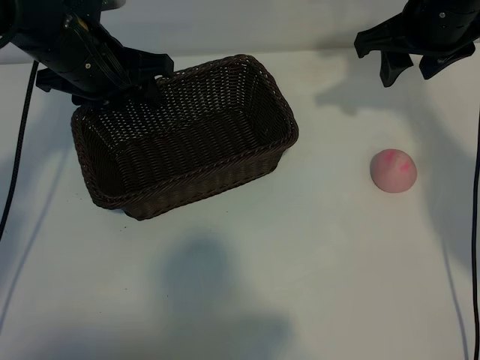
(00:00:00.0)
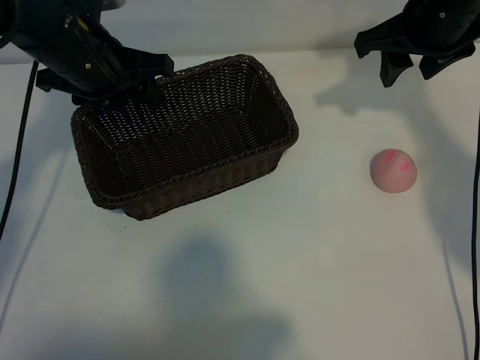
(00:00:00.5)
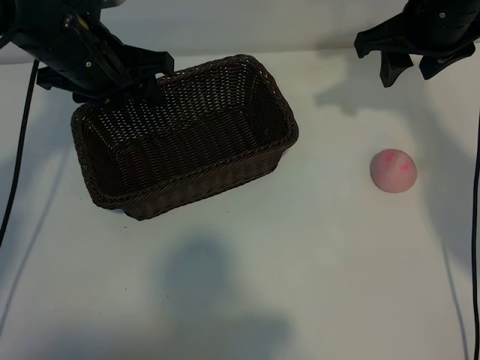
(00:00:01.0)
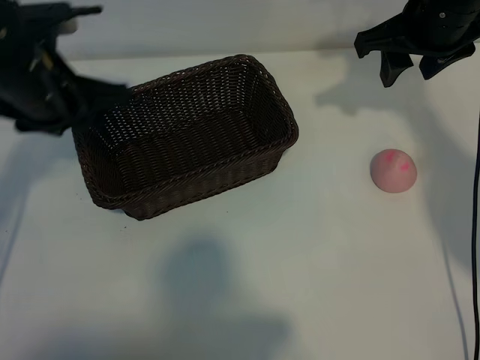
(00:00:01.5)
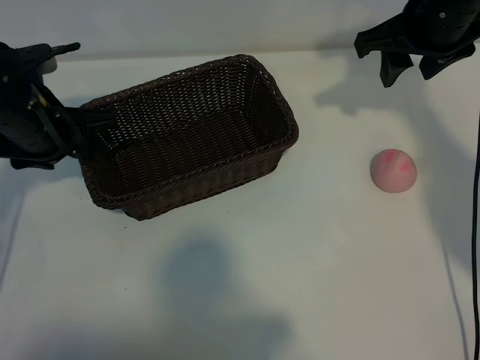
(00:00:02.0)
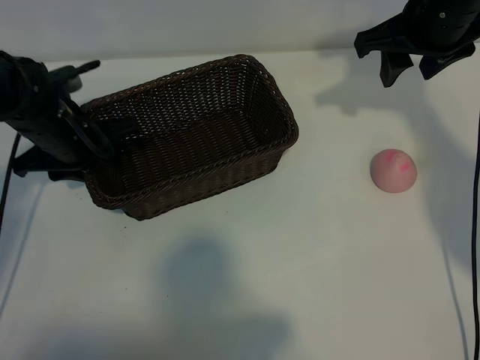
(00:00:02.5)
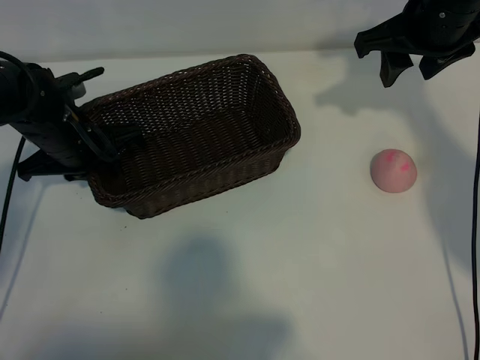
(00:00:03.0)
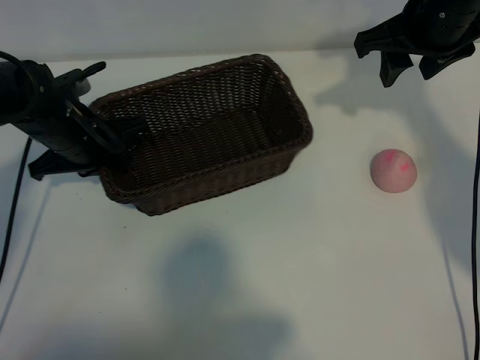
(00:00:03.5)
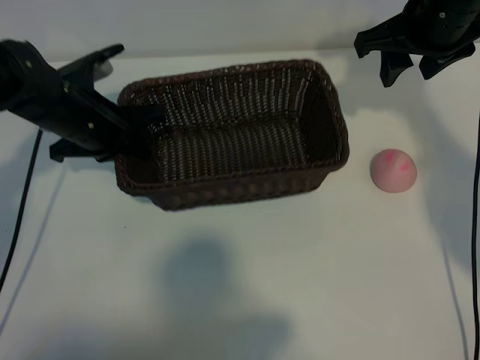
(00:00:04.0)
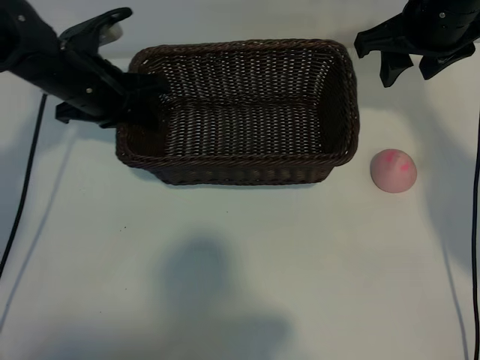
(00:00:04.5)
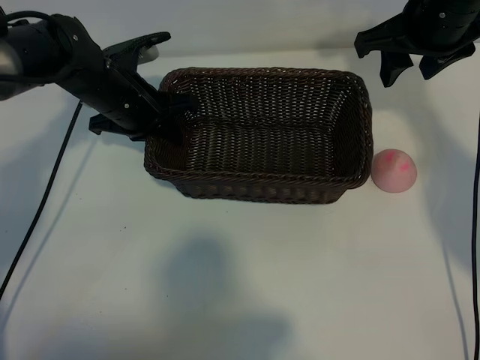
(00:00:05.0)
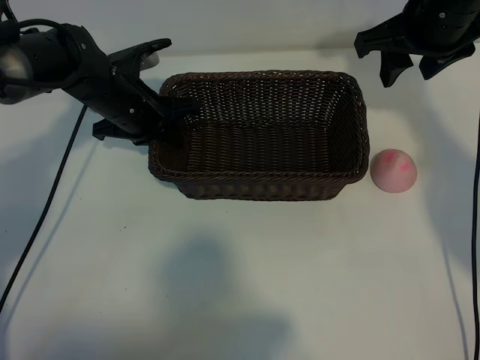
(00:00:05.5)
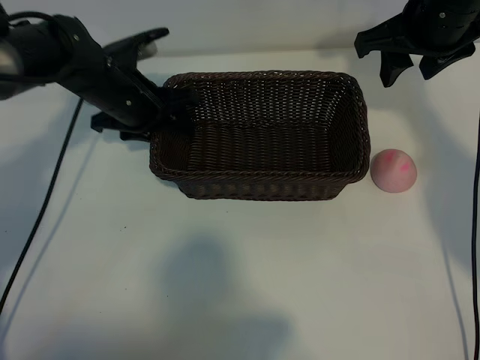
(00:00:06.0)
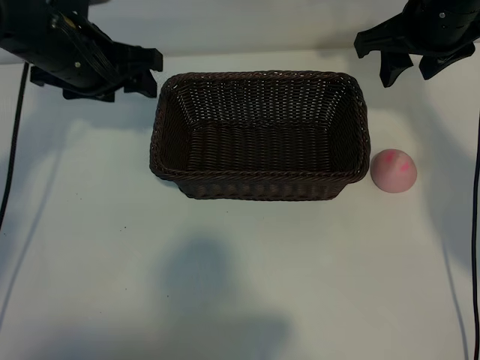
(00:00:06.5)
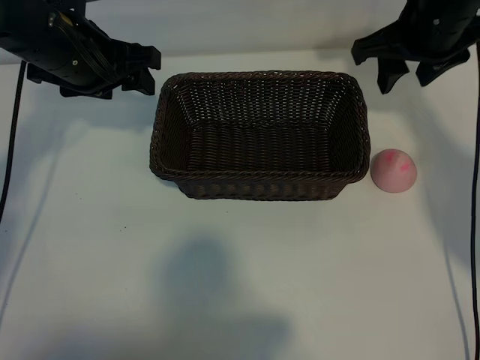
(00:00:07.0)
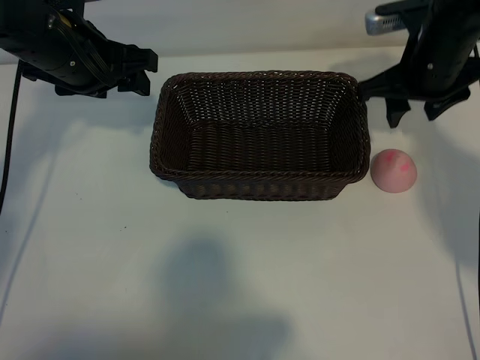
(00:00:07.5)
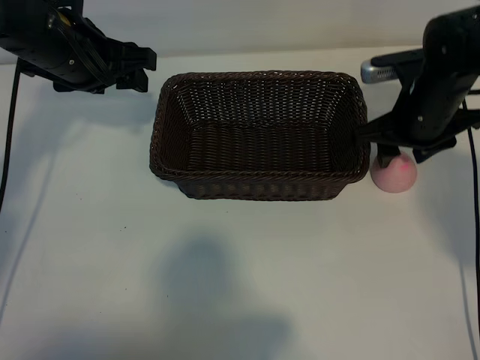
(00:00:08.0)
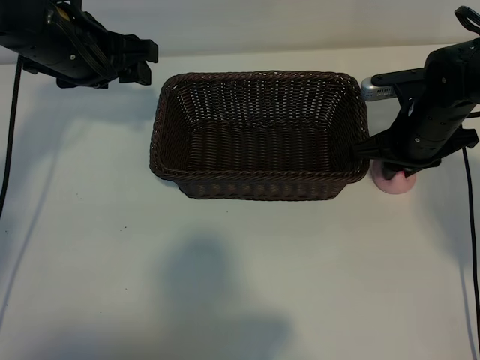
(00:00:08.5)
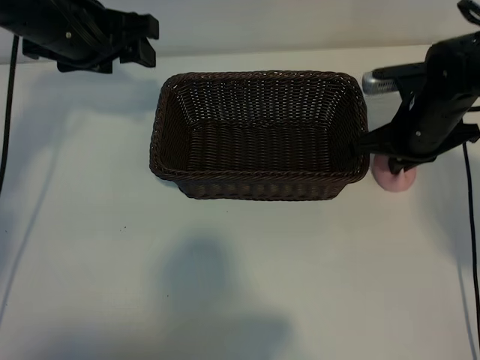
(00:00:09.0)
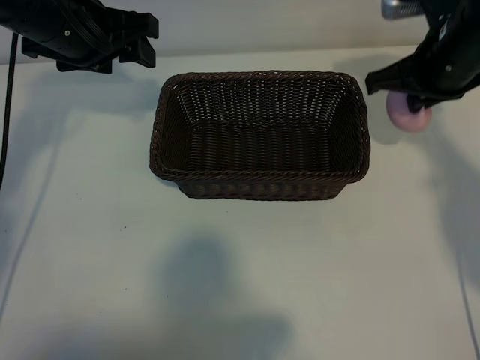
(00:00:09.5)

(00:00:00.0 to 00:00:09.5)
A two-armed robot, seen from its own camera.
Task of the whole recording: pick up the peach and put it into the basket.
Step, 00:00:01.0 - 00:00:03.0: Grasp the basket with left gripper.
Step, 00:00:03.5 - 00:00:05.5: Place the basket in the center of view with left gripper.
Step, 00:00:06.0 - 00:00:08.5: Grasp the peach with right gripper.

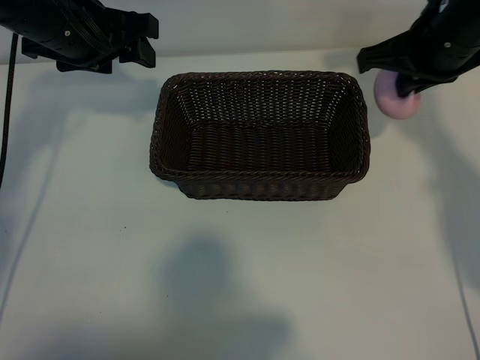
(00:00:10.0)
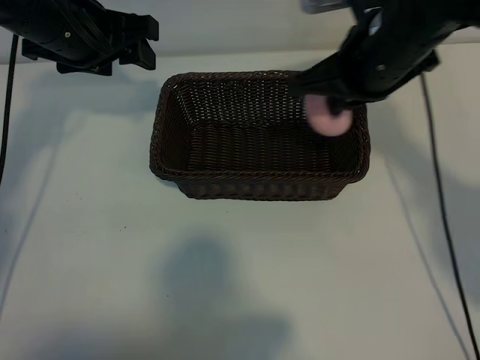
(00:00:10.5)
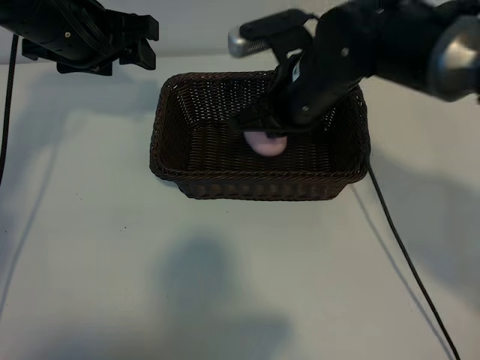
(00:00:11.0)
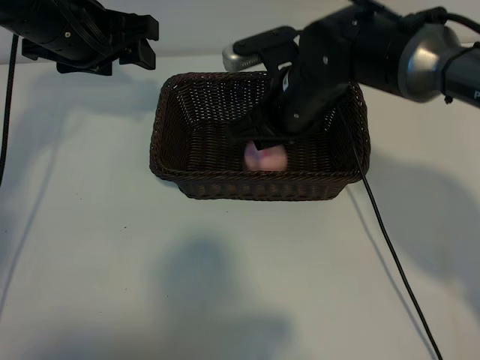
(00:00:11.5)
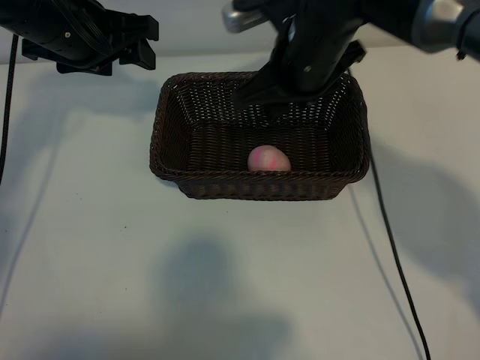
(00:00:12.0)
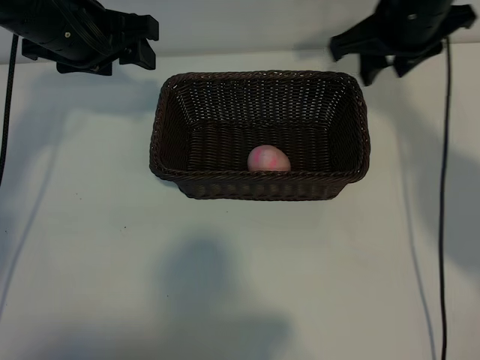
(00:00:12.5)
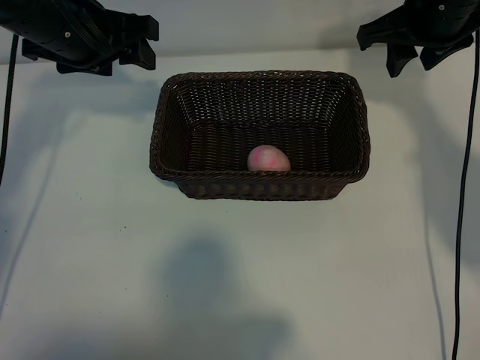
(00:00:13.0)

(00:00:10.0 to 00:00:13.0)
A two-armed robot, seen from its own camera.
Task of the whole recording: pick up the peach and put it into the basket.
Step, 00:00:10.0 - 00:00:11.5: Place the peach in the basket with right gripper.
